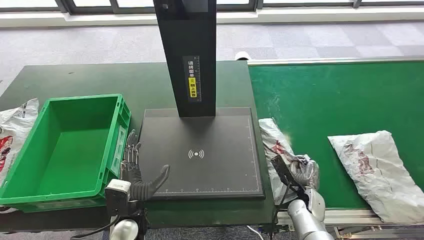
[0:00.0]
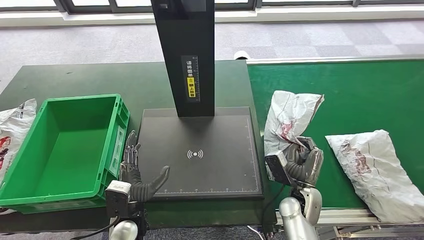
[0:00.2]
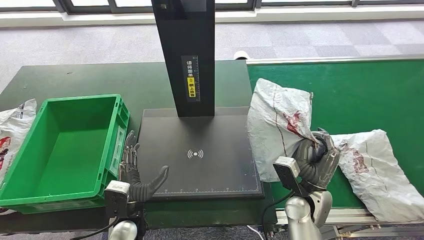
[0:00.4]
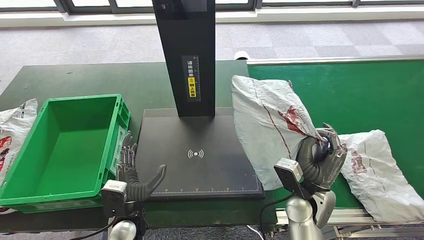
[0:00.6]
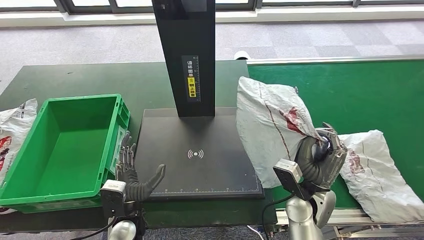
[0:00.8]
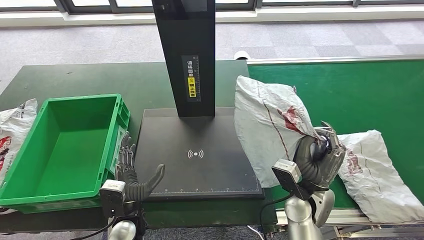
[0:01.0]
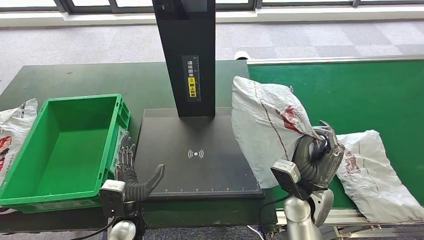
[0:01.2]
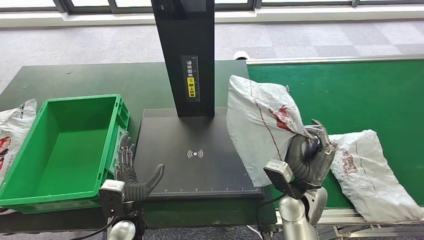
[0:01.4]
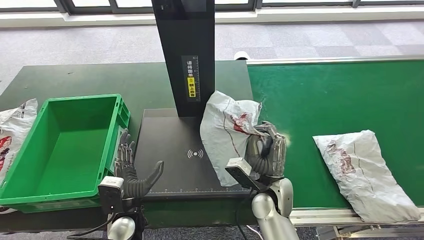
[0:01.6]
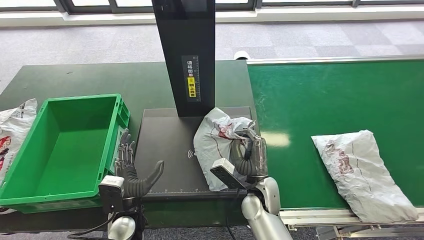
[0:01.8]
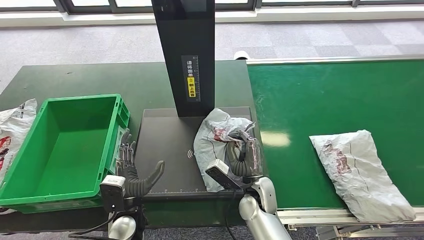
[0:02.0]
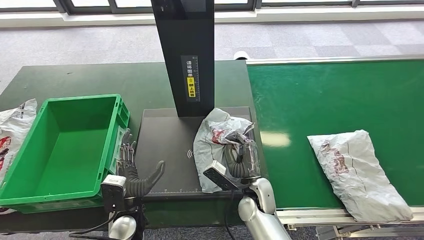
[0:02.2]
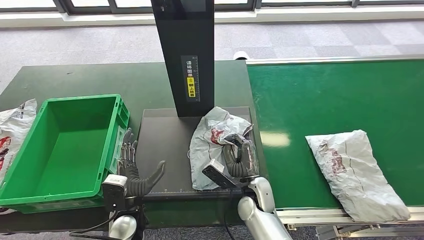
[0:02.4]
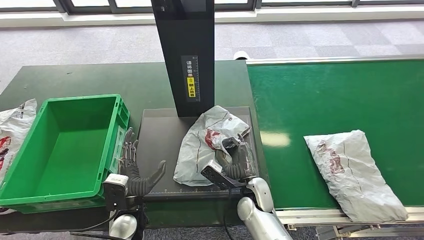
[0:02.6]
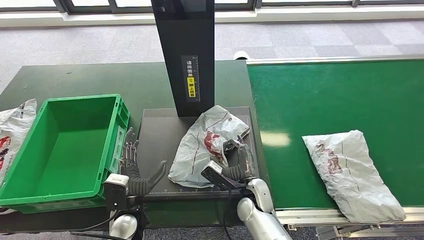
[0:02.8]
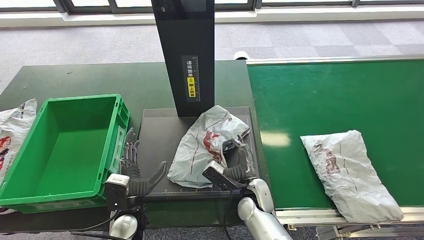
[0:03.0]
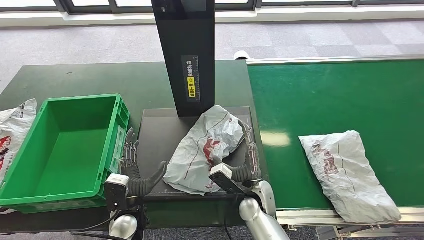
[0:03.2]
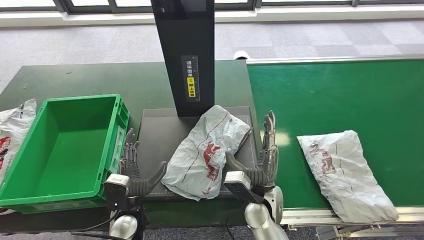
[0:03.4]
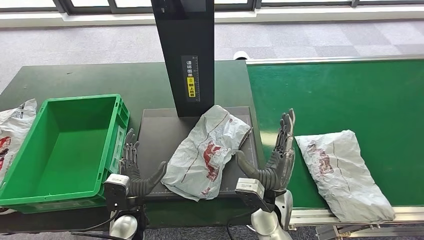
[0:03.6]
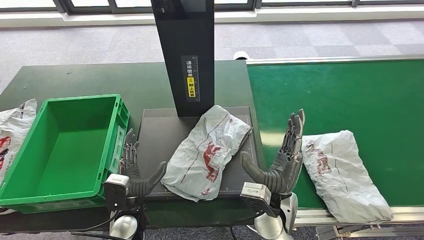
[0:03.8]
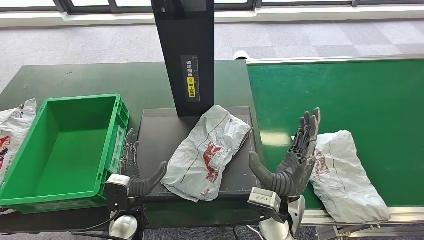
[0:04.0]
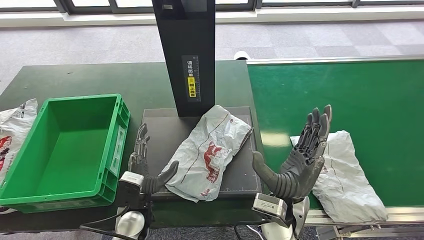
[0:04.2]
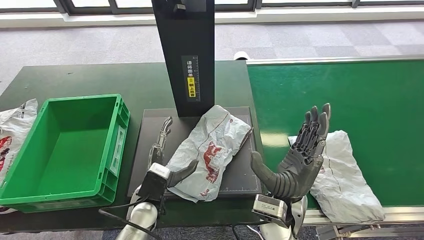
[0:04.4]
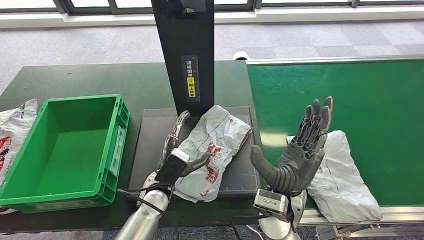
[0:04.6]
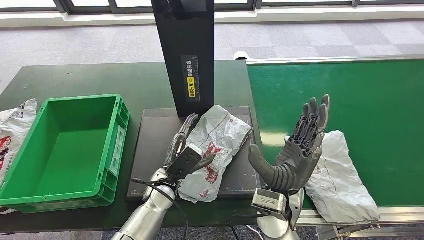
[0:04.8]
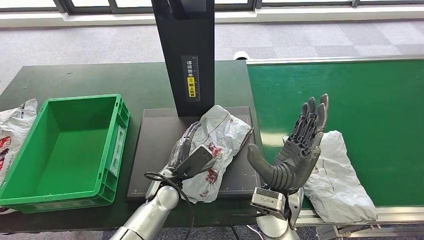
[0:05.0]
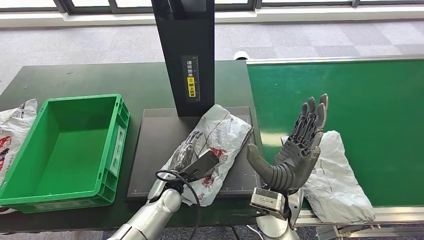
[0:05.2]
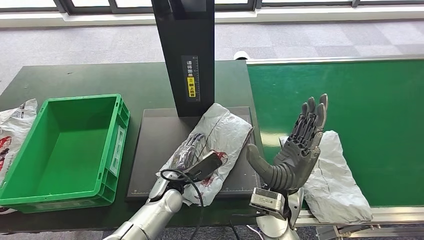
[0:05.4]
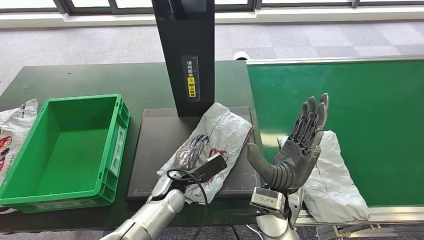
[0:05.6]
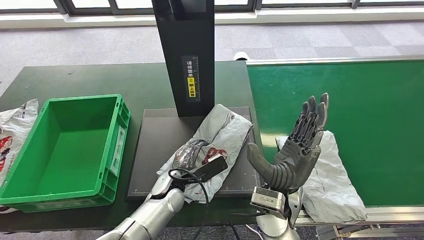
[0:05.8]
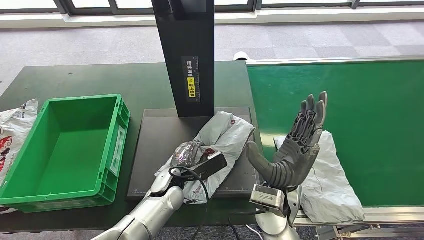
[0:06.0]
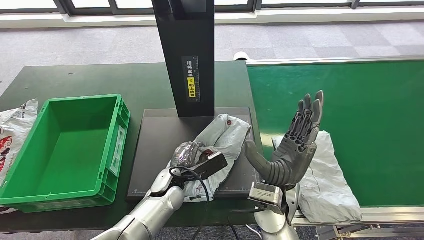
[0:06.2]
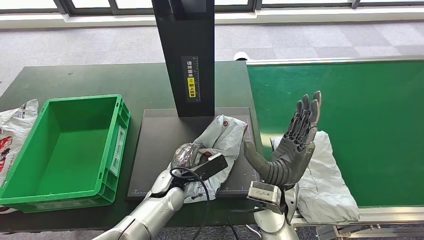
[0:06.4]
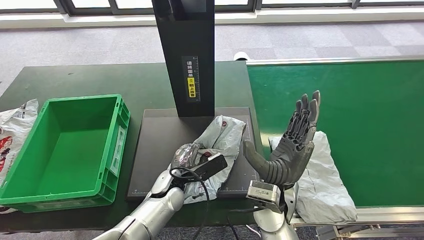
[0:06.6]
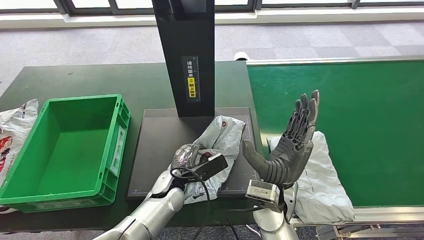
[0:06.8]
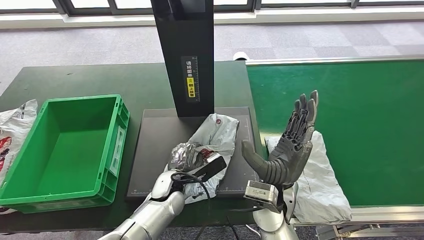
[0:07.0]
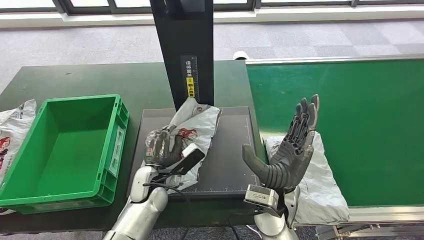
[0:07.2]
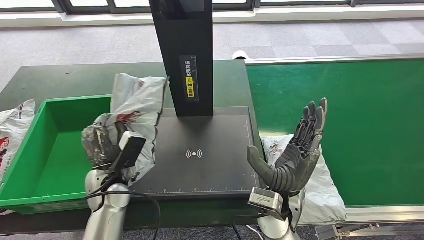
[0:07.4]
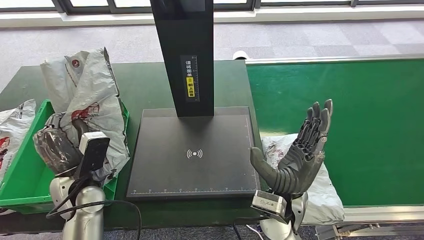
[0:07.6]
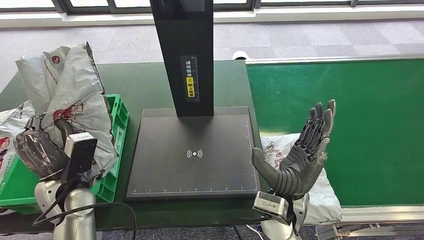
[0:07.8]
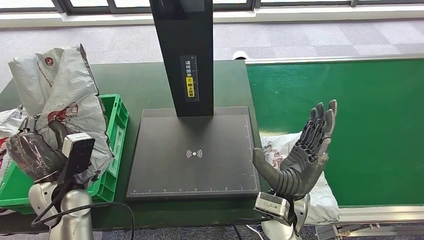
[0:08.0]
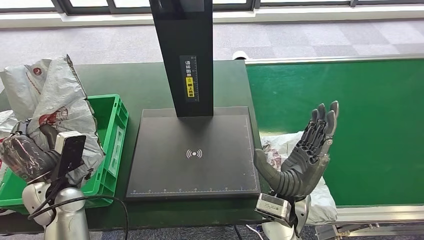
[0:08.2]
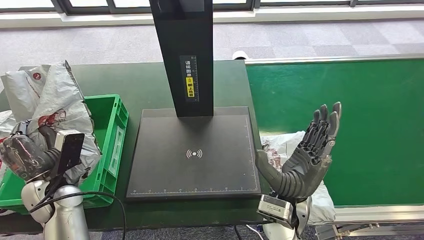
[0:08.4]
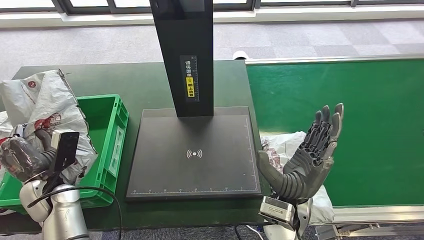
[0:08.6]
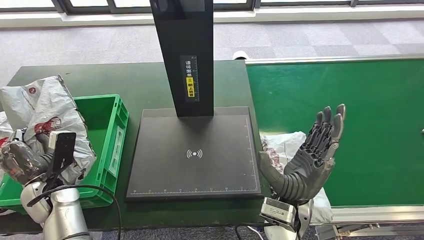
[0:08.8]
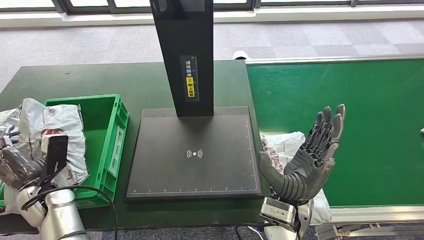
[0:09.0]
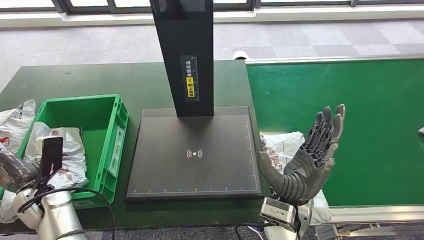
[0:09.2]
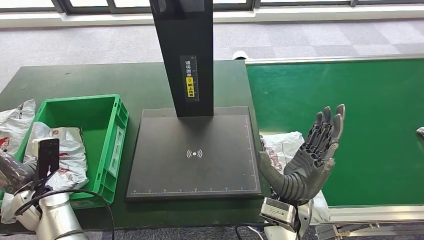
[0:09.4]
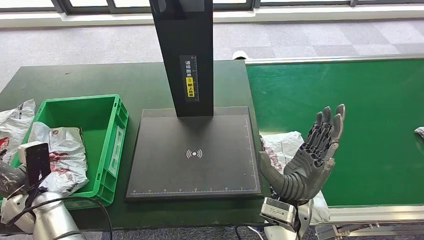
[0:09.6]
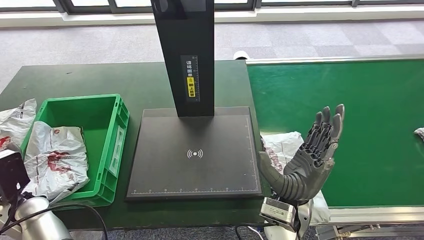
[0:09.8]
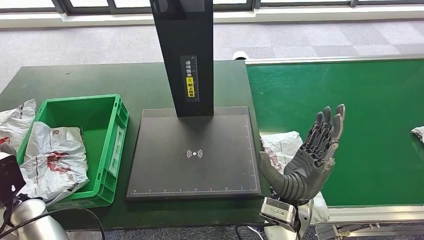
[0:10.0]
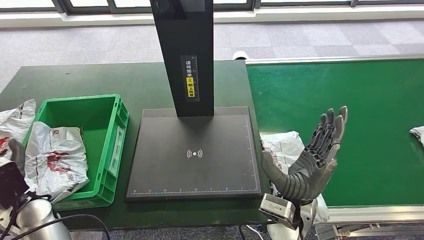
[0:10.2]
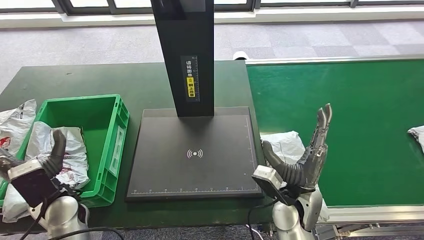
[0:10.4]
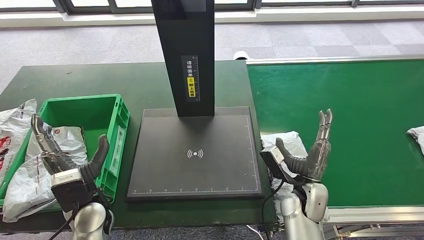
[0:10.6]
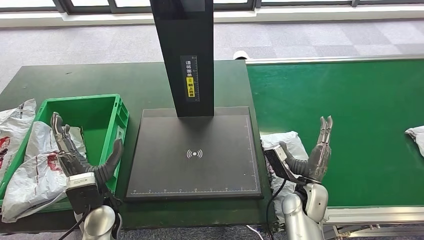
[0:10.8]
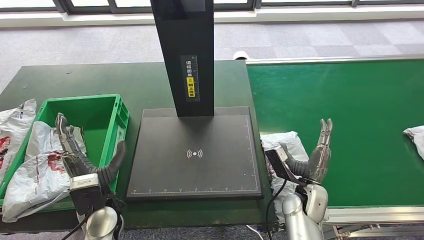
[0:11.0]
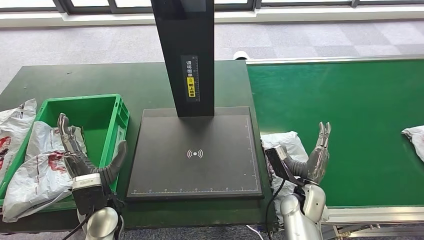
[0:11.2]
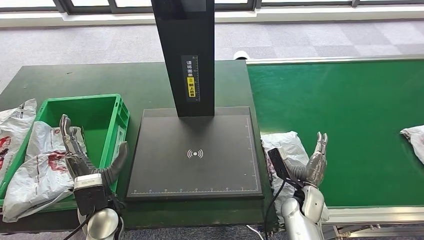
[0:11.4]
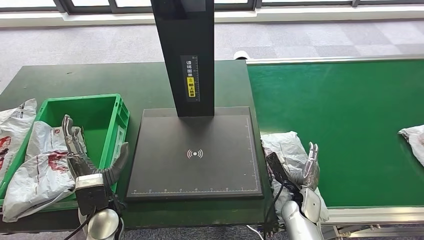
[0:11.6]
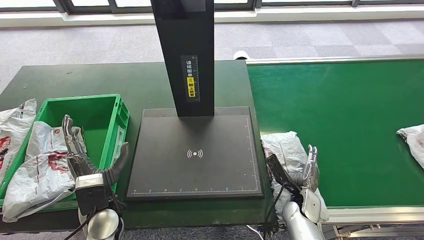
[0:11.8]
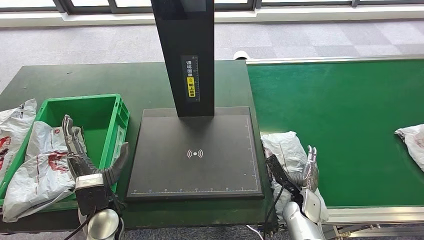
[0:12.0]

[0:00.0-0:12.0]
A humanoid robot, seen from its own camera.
Step, 0:00.0 to 0:01.4: Take the parcel off the conveyor belt.
Step, 0:01.6 to 0:03.2: Place the parcel onto the inbound machine.
Step, 0:06.8 to 0:08.4: Pick up the parcel from the inbound machine.
Step, 0:08.6 to 0:10.8: Put the parcel inside the courier box.
0:01.6 to 0:03.0: The right hand heads downward, covering about 5 cm.
0:03.0 to 0:04.4: The left hand ends up roughly 5 cm from where it was, while the right hand goes approximately 15 cm upward.
0:04.4 to 0:06.0: The left hand changes place by roughly 5 cm.
0:07.6 to 0:09.0: The left hand shifts about 10 cm to the left.
0:09.0 to 0:10.4: The right hand shifts by approximately 5 cm. The left hand moves to the right, approximately 5 cm.
0:10.4 to 0:12.0: The right hand moves downward, some 15 cm. Meanwhile the left hand moves to the right, approximately 10 cm.

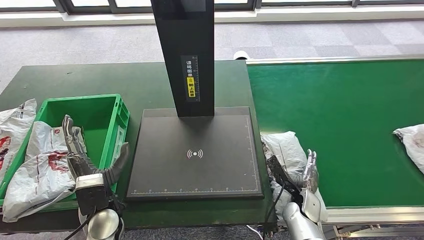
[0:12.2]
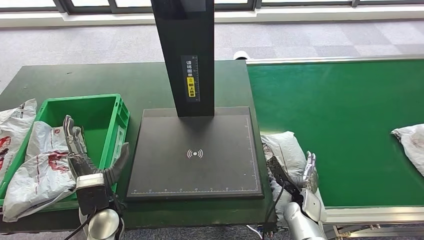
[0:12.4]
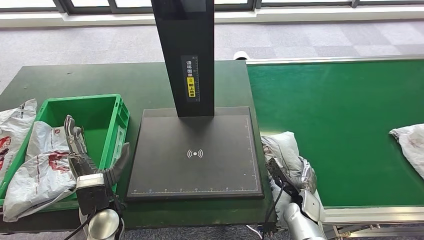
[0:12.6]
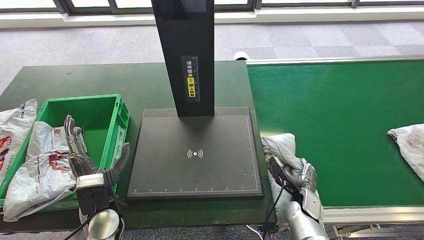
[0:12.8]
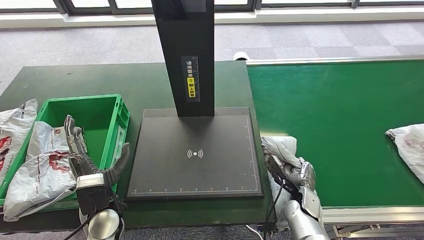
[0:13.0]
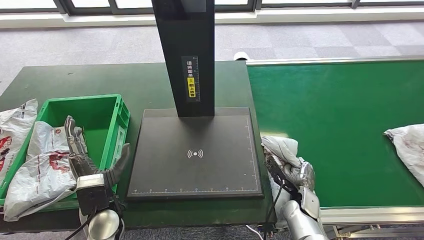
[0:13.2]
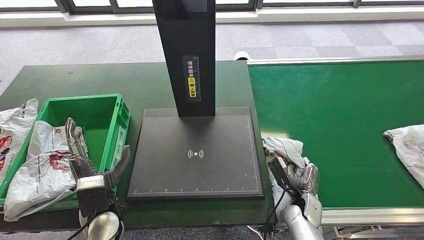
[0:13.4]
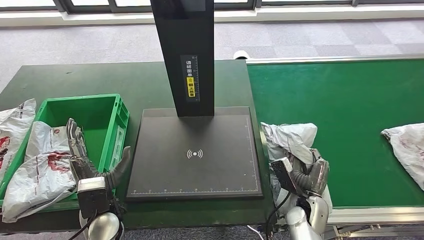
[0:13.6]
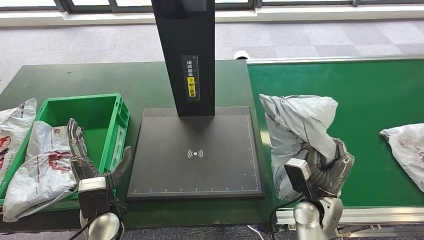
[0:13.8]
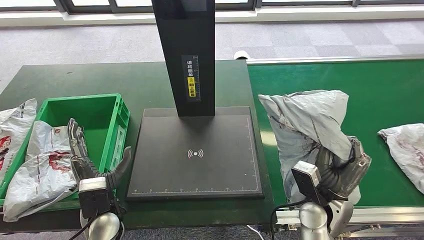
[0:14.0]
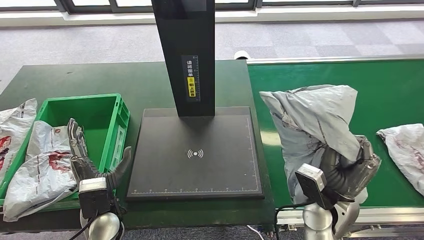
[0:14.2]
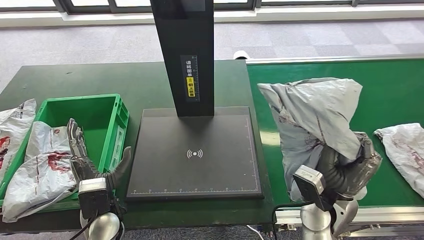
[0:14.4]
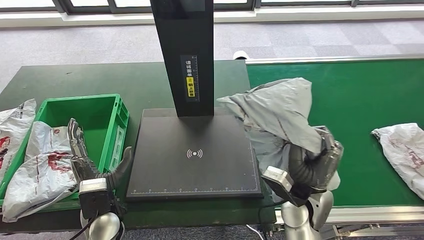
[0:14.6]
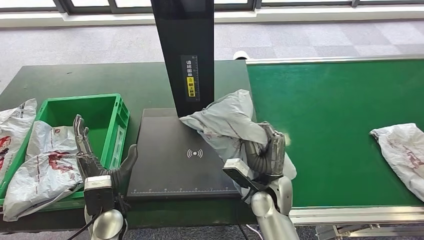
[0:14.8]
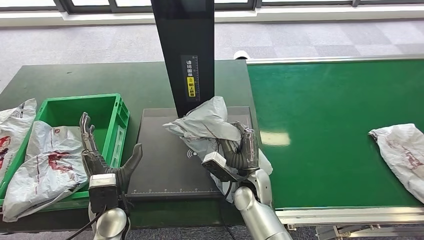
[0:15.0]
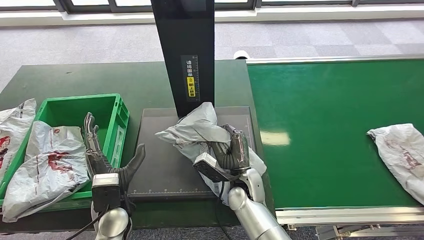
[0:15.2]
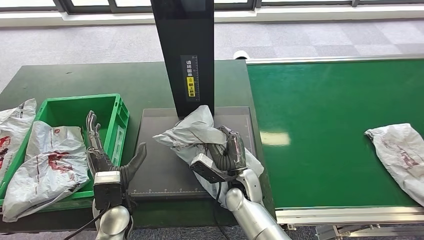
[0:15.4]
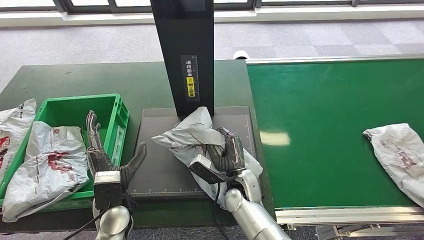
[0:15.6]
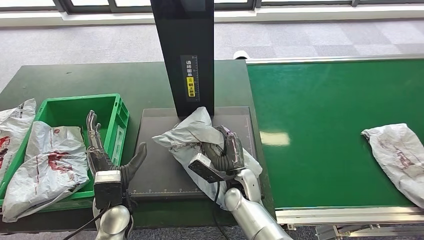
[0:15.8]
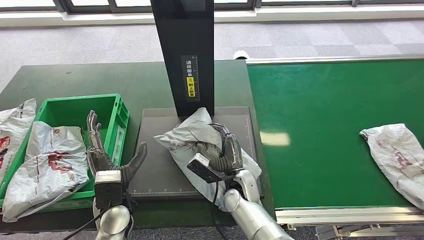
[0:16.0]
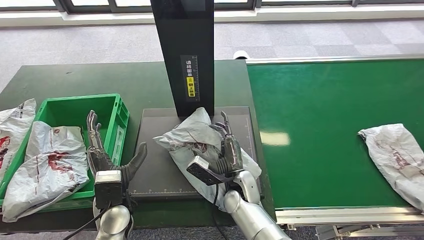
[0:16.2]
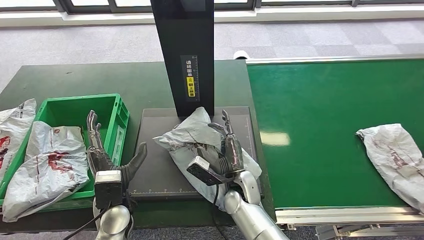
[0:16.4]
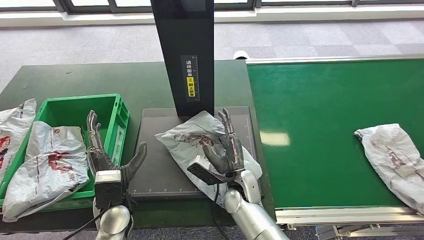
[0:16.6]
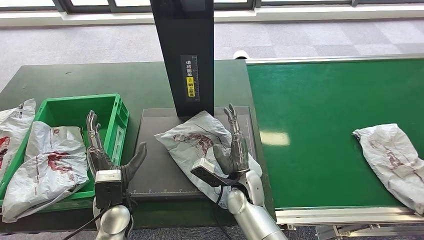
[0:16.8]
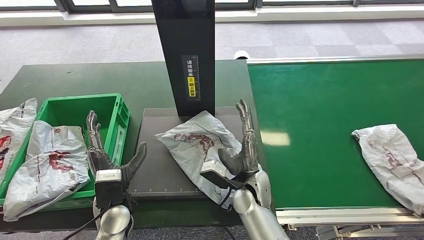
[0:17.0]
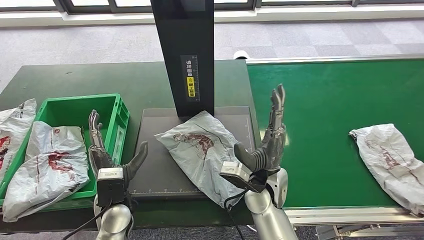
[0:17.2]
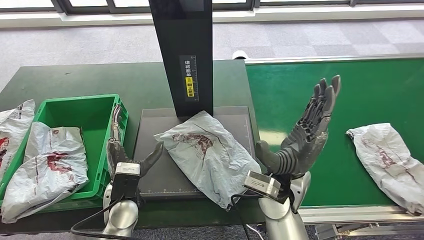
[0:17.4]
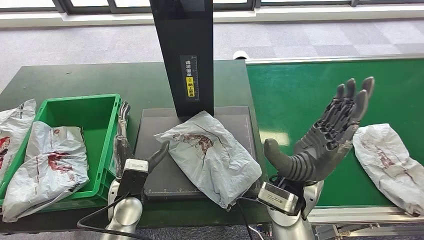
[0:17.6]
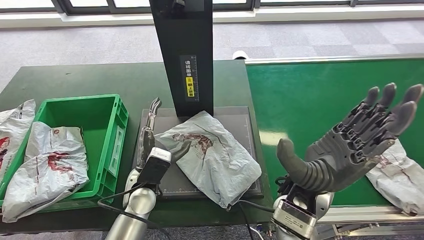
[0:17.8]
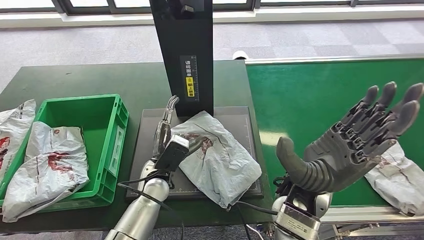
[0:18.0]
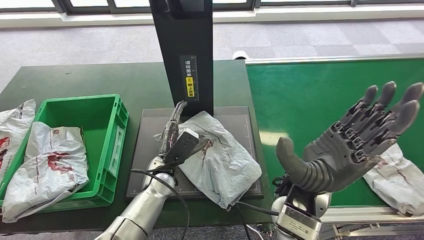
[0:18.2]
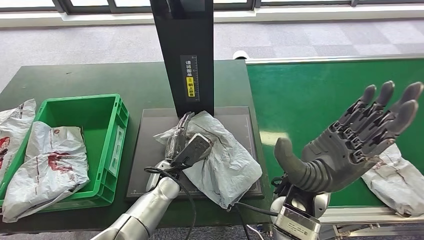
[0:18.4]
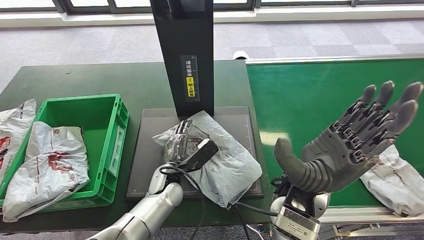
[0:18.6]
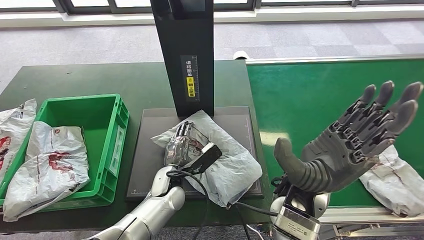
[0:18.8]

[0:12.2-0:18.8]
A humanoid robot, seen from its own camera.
Step, 0:12.2 to 0:14.4: Pick up the parcel from the conveyor belt.
Step, 0:14.6 to 0:16.8: Place the parcel onto the inbound machine.
0:12.2 to 0:13.8: The right hand heads upward, covering some 10 cm.
0:15.4 to 0:17.2: The right hand moves upward, roughly 5 cm.
